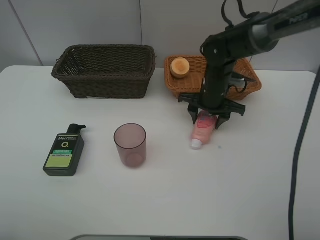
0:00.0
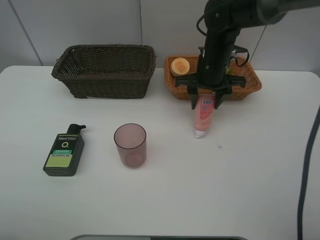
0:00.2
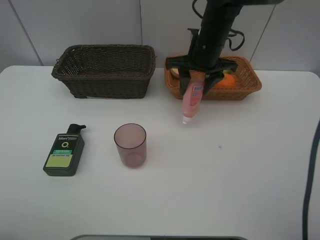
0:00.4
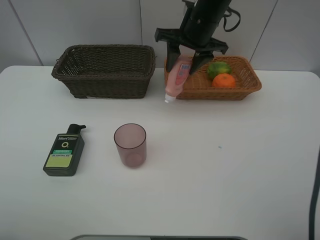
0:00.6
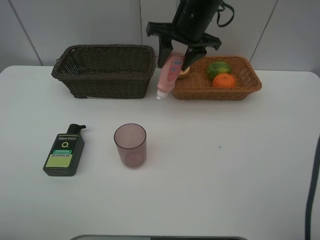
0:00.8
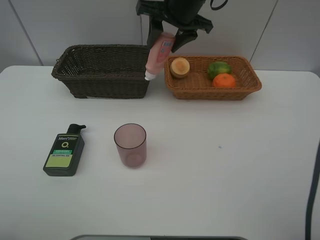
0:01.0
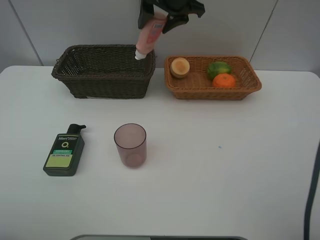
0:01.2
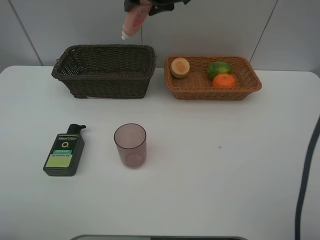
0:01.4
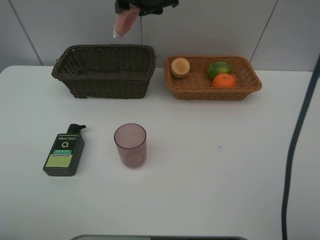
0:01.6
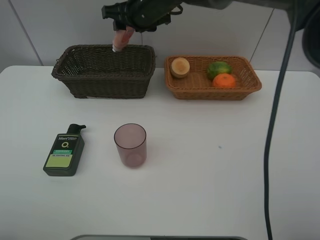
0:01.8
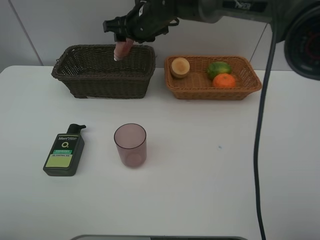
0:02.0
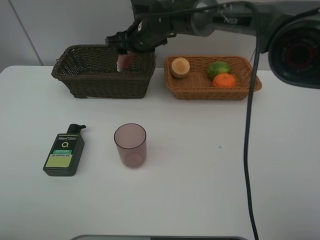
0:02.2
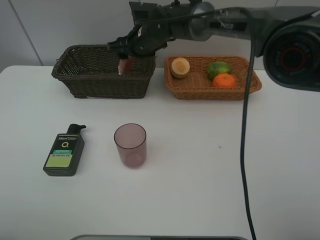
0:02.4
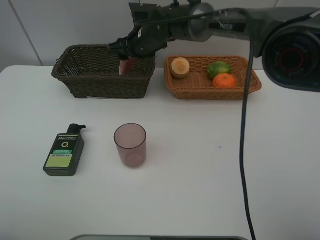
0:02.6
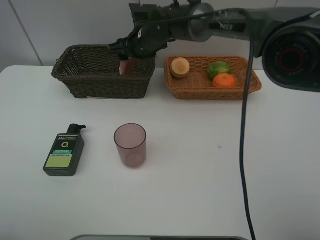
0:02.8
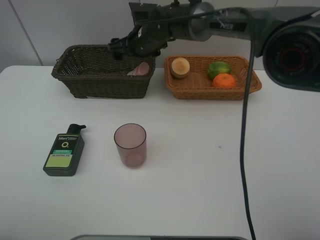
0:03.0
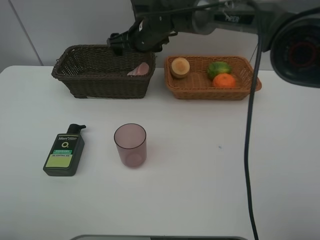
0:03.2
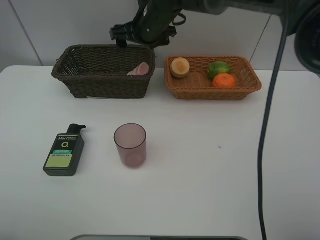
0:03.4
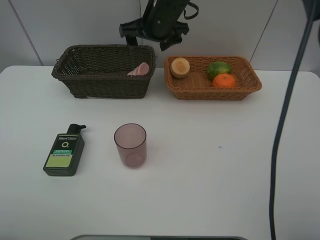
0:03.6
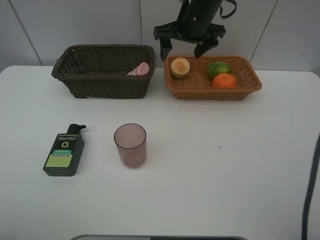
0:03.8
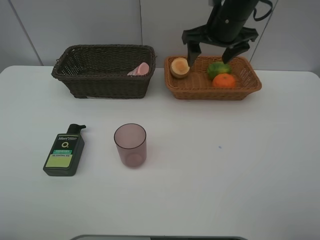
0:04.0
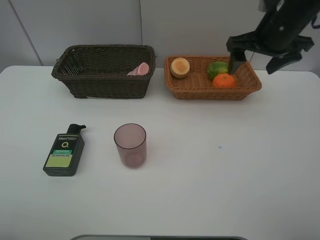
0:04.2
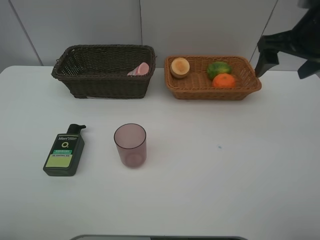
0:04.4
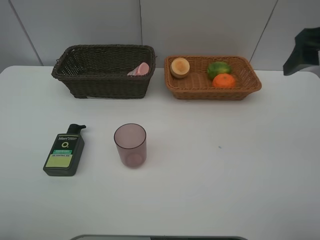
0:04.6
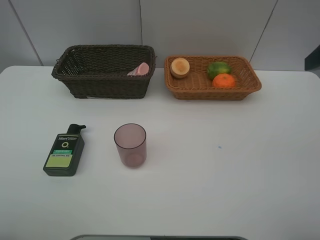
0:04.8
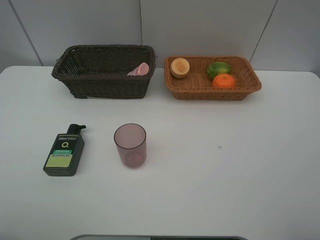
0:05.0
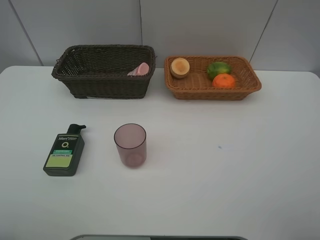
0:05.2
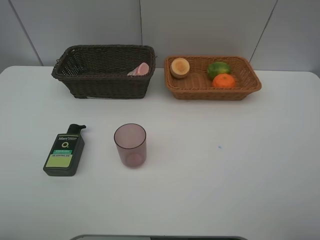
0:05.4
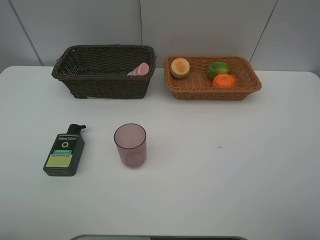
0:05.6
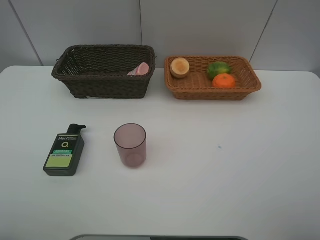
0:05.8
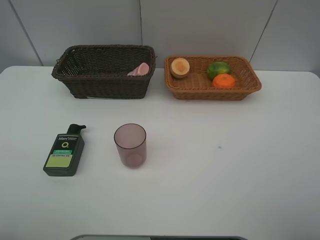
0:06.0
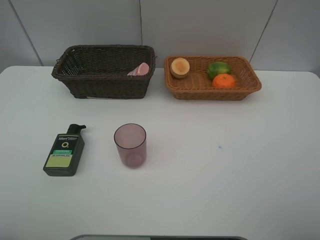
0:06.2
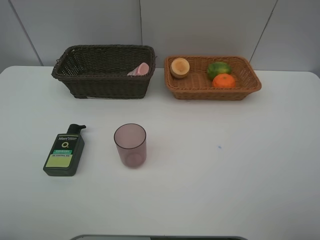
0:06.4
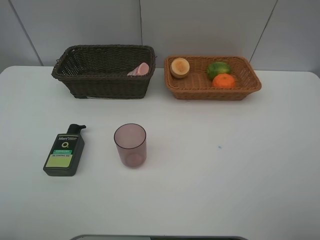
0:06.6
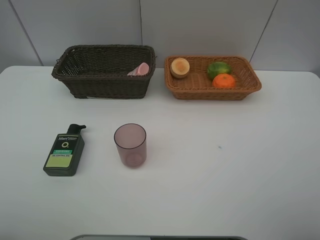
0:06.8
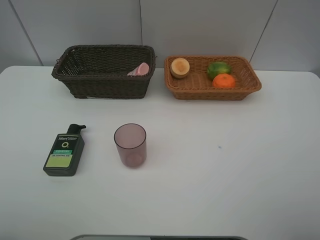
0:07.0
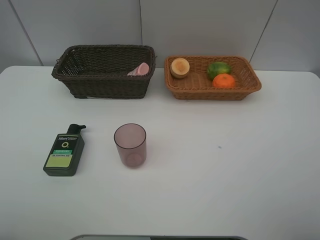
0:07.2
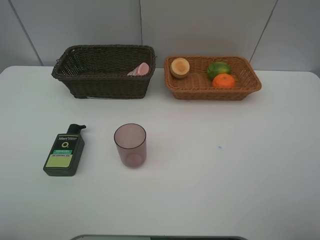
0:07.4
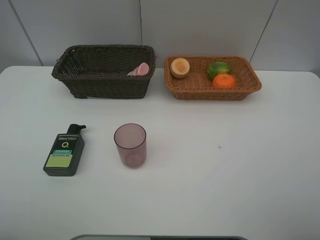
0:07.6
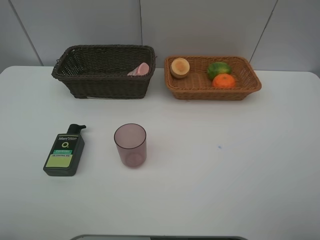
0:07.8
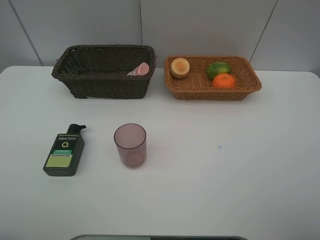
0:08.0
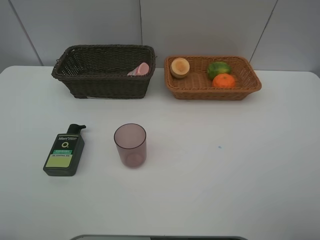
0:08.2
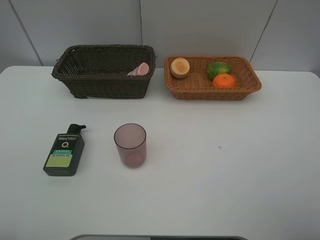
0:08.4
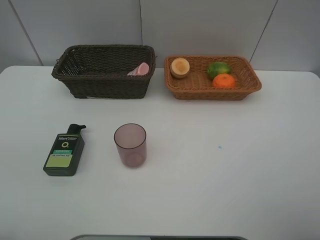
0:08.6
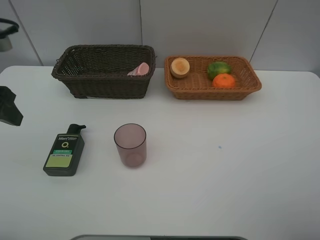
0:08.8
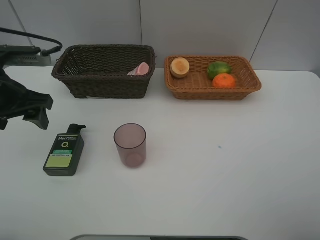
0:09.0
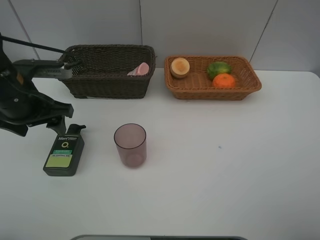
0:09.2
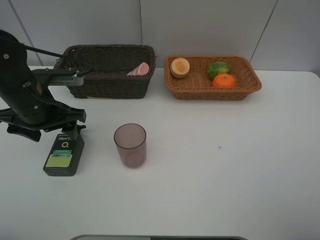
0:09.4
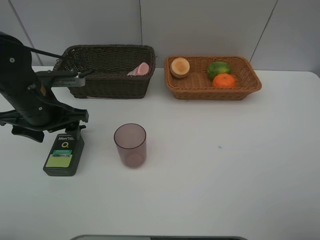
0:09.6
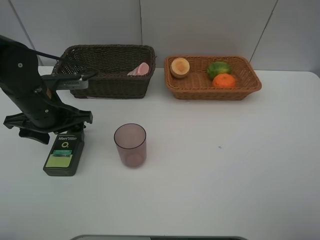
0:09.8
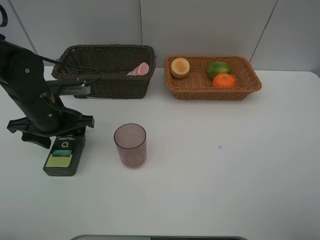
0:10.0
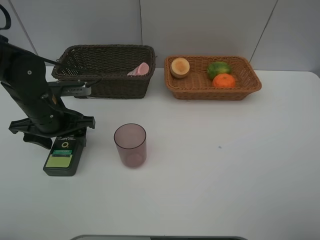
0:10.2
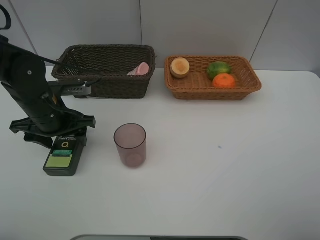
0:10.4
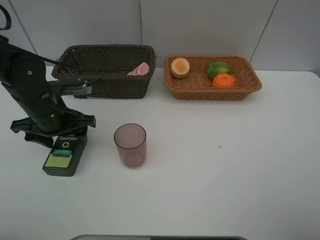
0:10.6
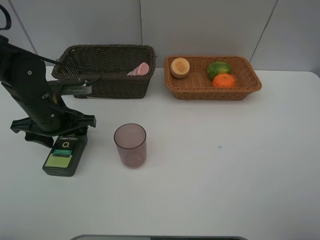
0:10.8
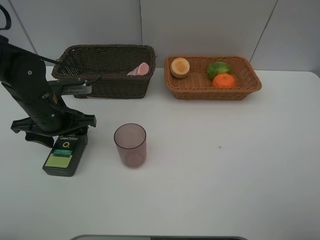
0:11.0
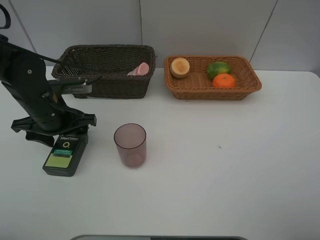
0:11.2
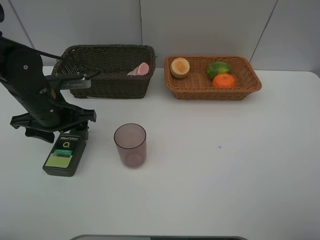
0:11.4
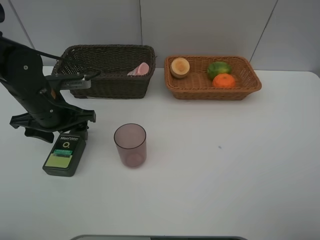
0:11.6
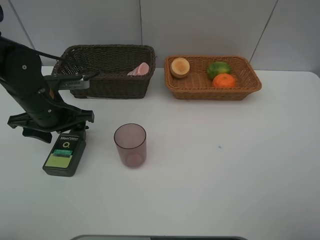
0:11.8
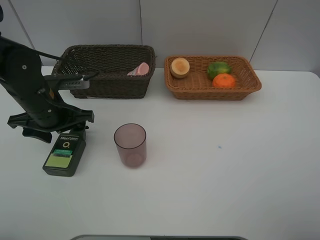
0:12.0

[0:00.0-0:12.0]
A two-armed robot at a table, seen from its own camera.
Task of the whole recording: place multiple objects separately in different baskets.
0:00.0 to 0:01.6: The right gripper is displaced upward and to the left by approximately 25 cm.
0:01.6 to 0:03.0: The right gripper heads downward, covering about 10 cm, and opens its fingers.
0:03.0 to 0:04.4: The right gripper travels to the right, backward and upward by approximately 35 cm.
0:04.4 to 0:06.0: The right gripper heads backward, covering approximately 30 cm.
0:07.6 to 0:09.0: The left gripper heads forward, covering about 25 cm.
0:09.0 to 0:10.4: The left gripper heads downward, covering some 10 cm.
0:10.4 to 0:12.0: Both grippers stay about where they are.

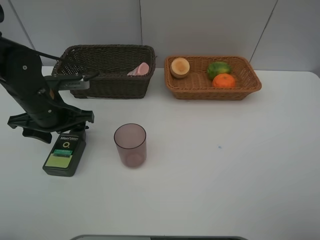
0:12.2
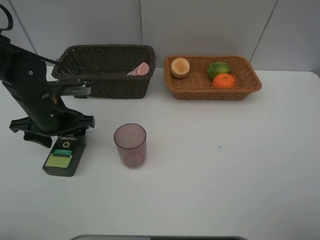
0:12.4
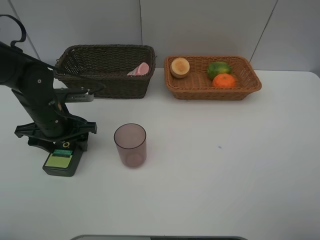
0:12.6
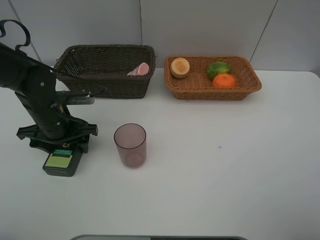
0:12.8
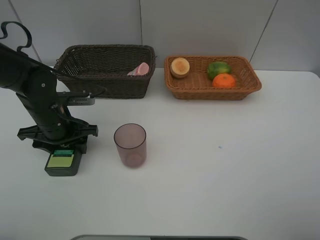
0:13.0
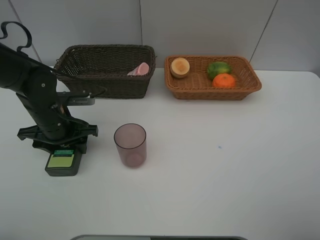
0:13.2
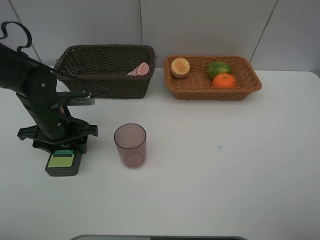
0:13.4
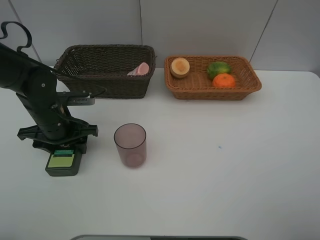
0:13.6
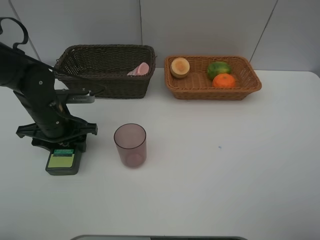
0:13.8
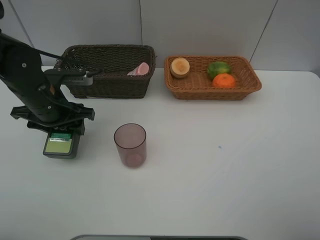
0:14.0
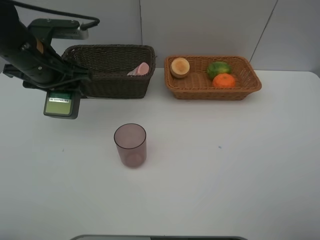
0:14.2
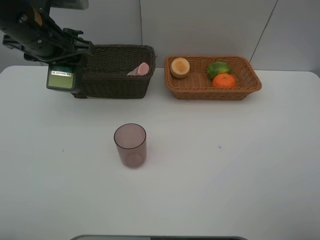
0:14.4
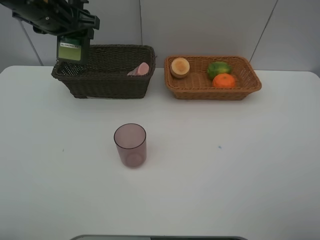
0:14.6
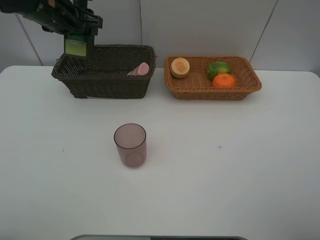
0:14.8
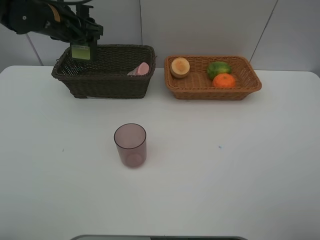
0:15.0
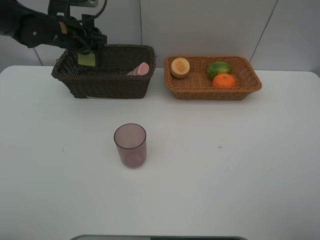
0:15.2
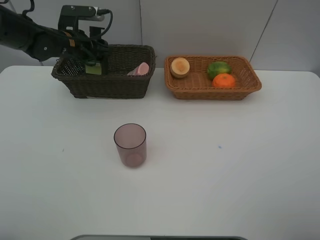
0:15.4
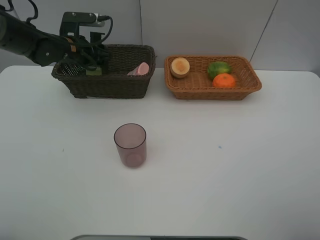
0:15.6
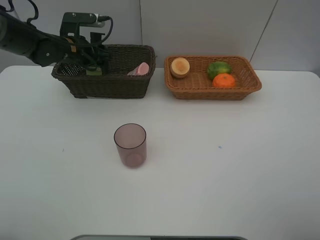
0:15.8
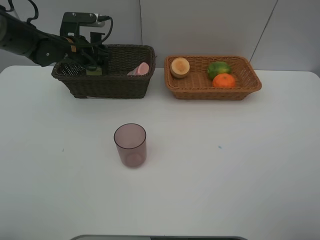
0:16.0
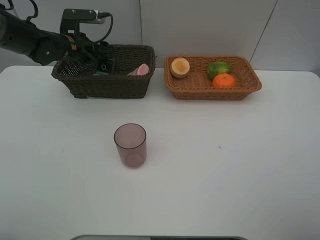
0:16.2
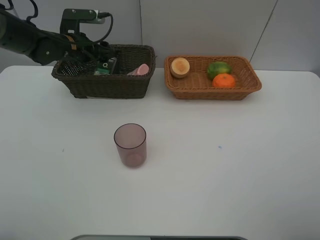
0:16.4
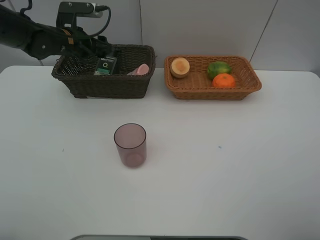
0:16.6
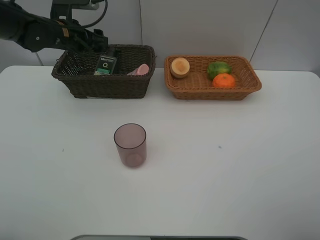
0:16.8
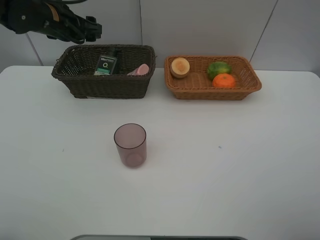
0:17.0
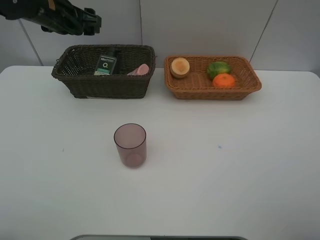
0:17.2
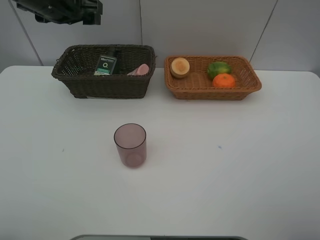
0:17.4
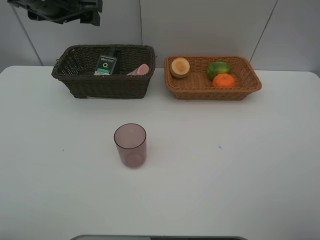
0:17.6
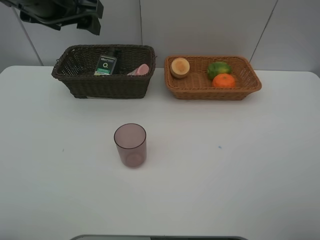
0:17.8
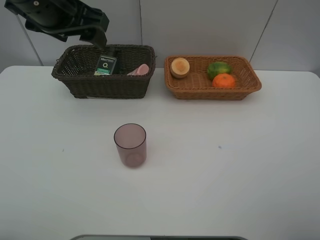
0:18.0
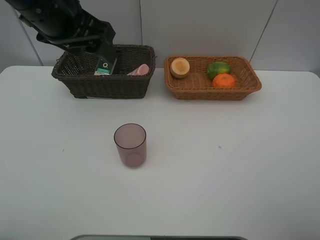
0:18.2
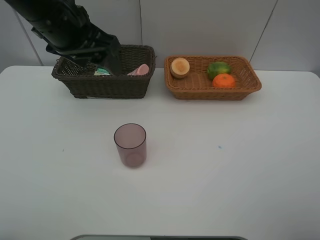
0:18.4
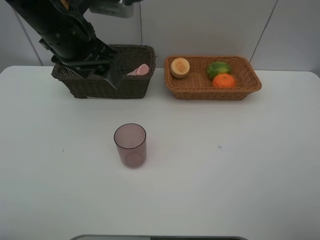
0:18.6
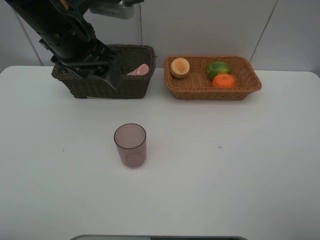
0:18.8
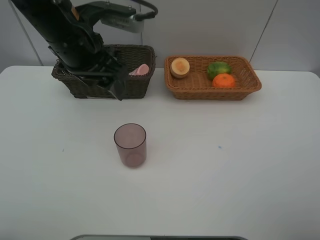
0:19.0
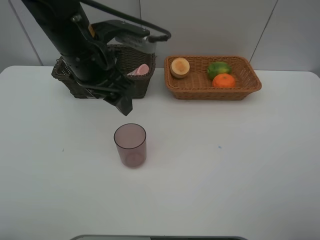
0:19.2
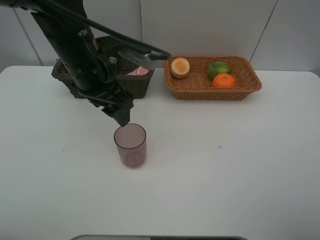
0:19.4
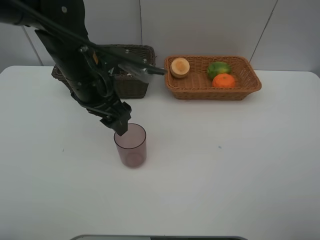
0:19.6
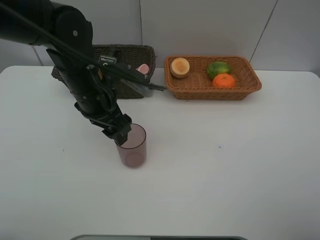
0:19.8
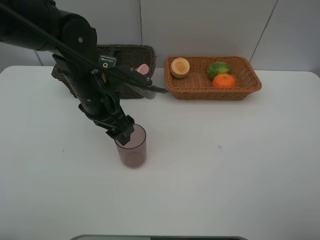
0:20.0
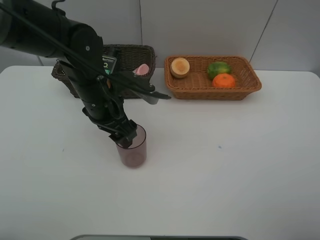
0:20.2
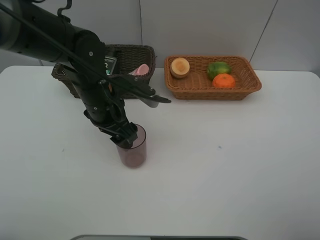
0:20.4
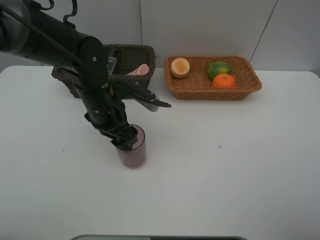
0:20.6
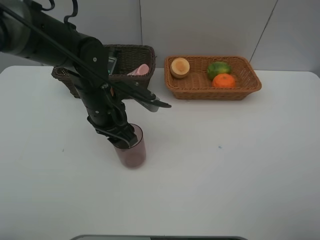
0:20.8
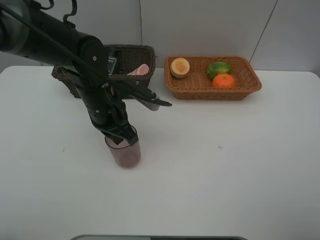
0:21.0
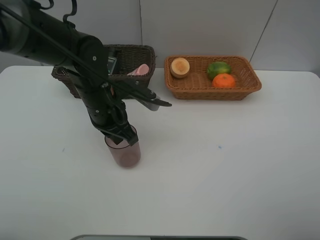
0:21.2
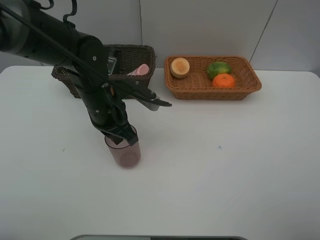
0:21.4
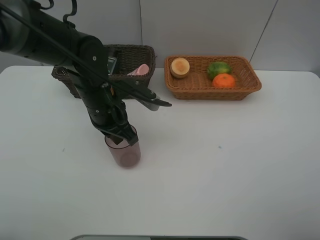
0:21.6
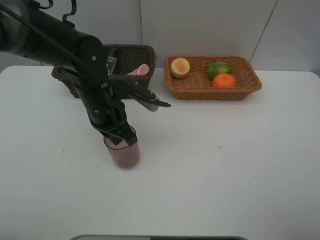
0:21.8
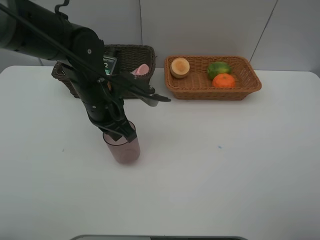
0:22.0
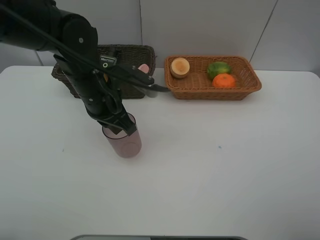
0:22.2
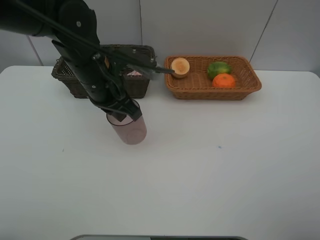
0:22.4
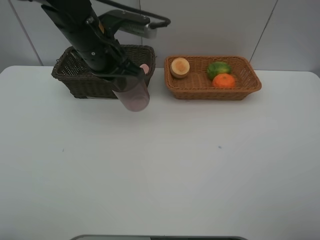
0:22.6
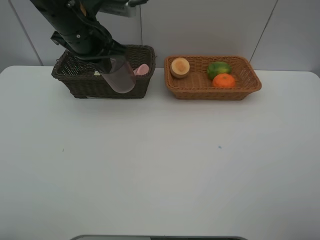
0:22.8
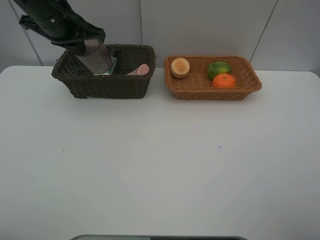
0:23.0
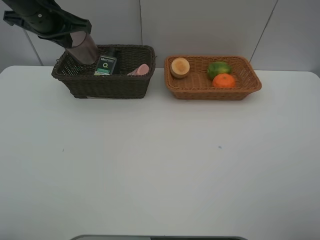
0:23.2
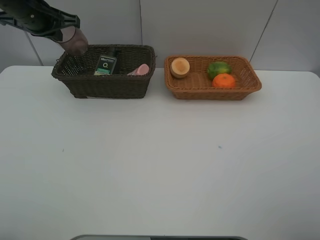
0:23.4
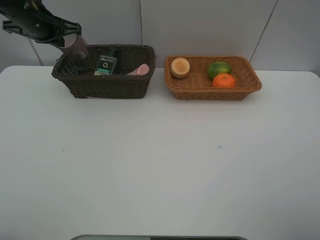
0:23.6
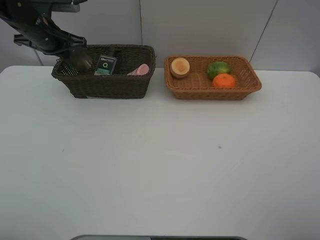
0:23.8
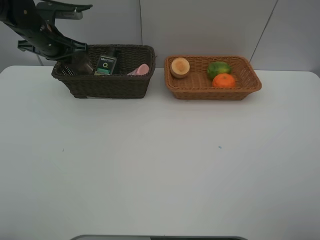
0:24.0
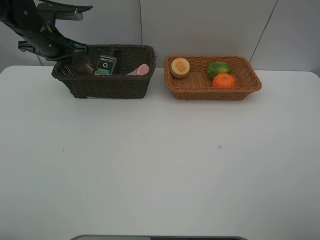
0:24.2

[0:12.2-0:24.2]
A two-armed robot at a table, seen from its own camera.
Task of the whole recording: place multiple objects separately in different baskets.
0:12.2 to 0:13.8: The grippers move only a little.
0:13.8 to 0:15.2: The left gripper shifts approximately 15 cm forward and upward.
0:15.2 to 0:16.6: The grippers move only a little.
0:16.6 to 0:18.2: The left gripper moves backward, upward and to the right, roughly 20 cm.
0:18.2 to 0:19.8: The left gripper moves downward, roughly 15 cm.
0:19.8 to 0:21.2: The left gripper closes its fingers.
0:21.2 to 0:22.6: The left gripper travels upward by roughly 10 cm.
0:22.6 to 0:24.2: The left gripper shifts roughly 20 cm to the left and forward.
